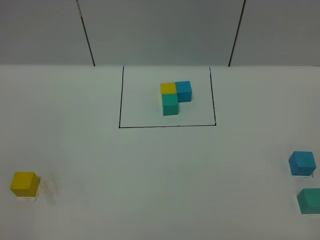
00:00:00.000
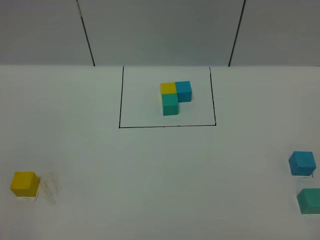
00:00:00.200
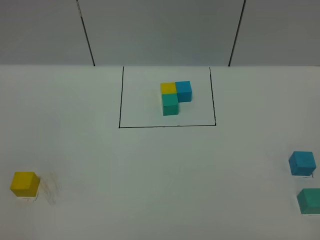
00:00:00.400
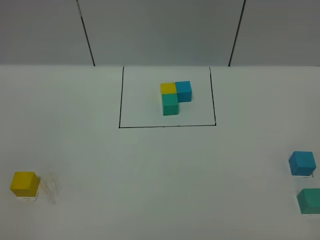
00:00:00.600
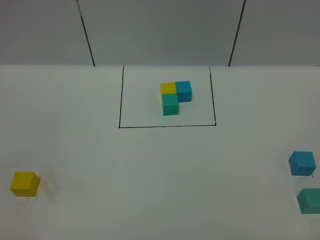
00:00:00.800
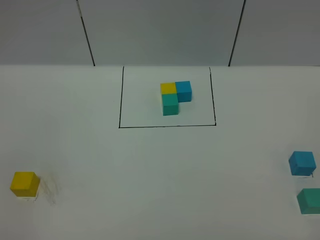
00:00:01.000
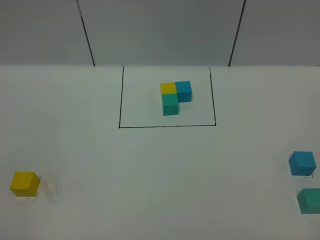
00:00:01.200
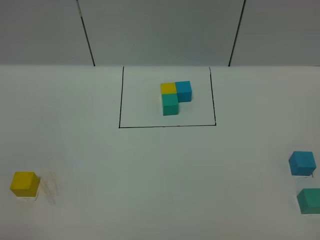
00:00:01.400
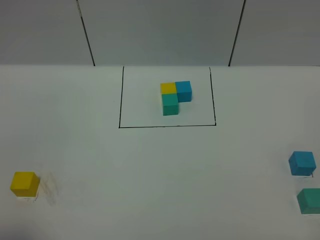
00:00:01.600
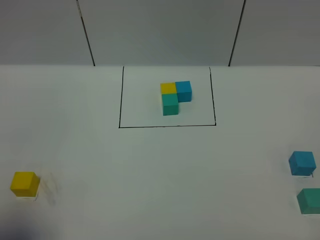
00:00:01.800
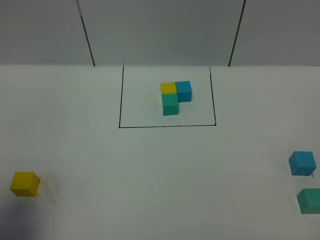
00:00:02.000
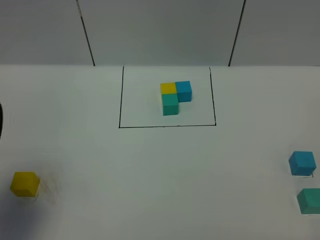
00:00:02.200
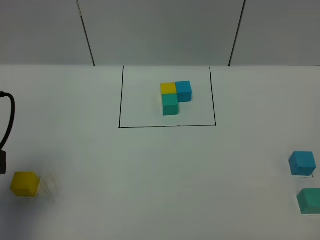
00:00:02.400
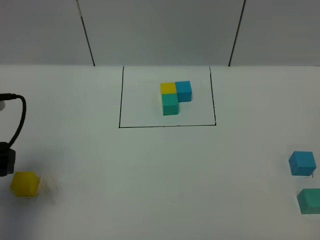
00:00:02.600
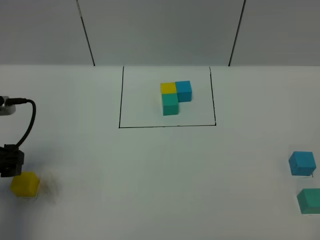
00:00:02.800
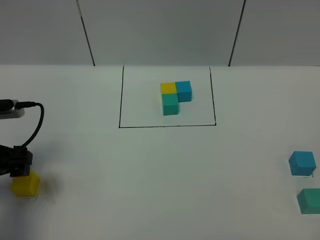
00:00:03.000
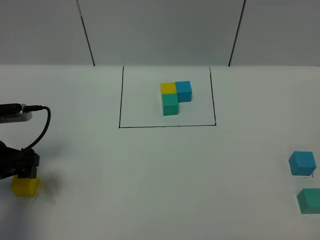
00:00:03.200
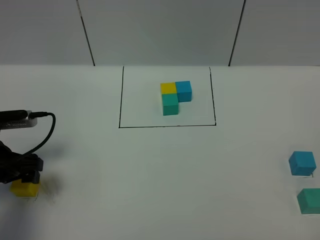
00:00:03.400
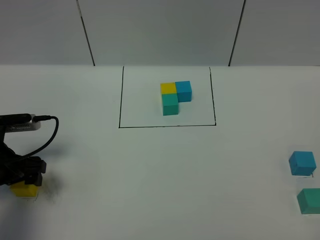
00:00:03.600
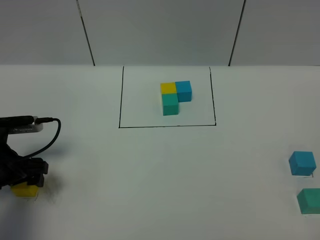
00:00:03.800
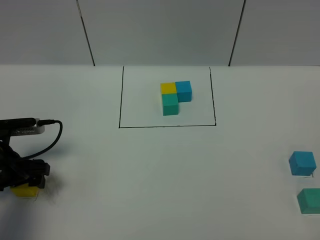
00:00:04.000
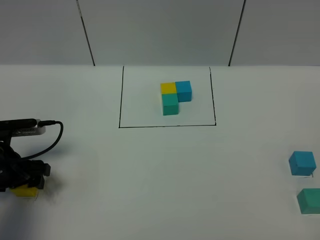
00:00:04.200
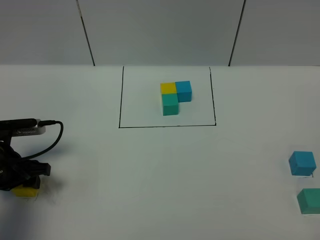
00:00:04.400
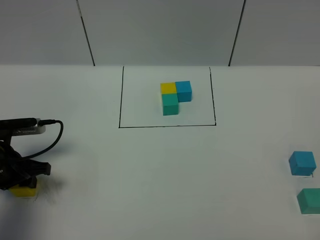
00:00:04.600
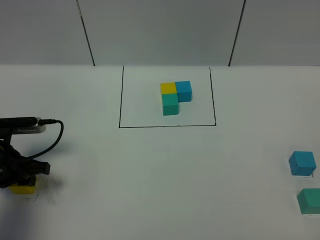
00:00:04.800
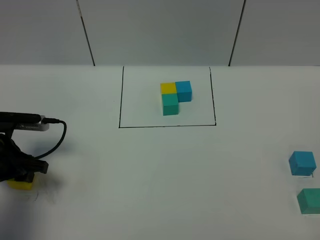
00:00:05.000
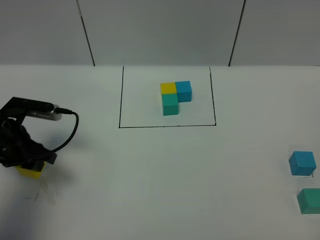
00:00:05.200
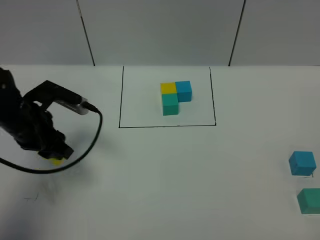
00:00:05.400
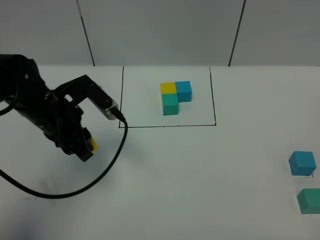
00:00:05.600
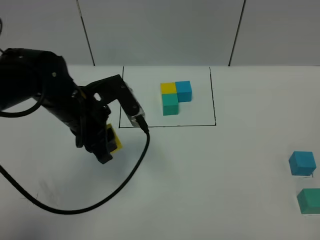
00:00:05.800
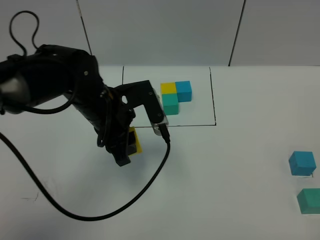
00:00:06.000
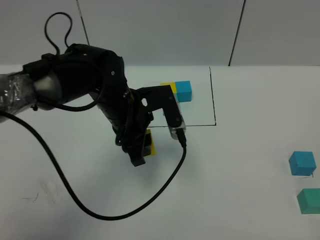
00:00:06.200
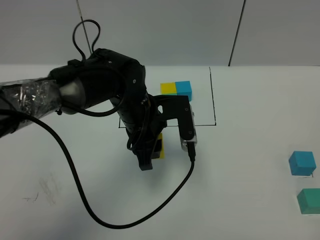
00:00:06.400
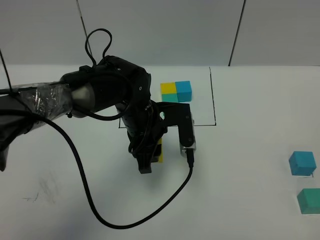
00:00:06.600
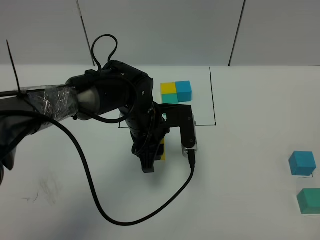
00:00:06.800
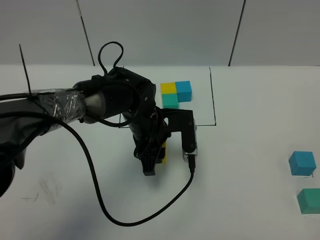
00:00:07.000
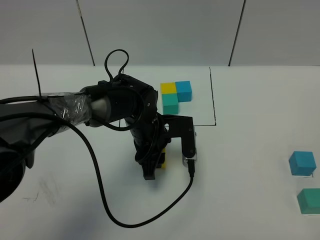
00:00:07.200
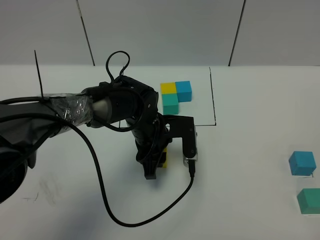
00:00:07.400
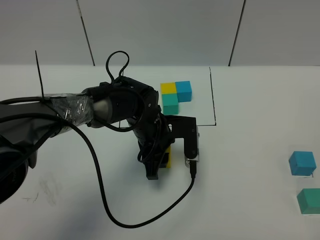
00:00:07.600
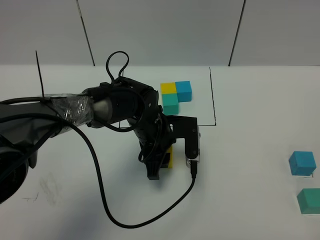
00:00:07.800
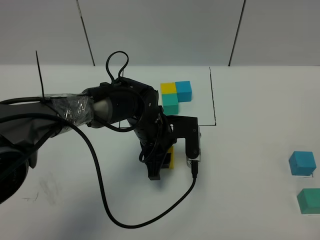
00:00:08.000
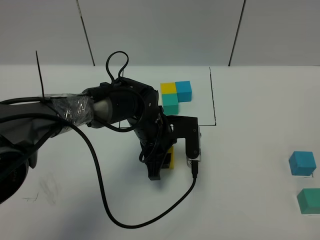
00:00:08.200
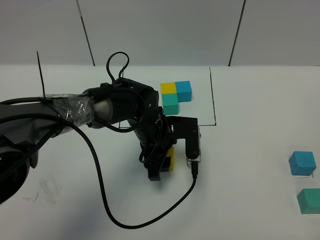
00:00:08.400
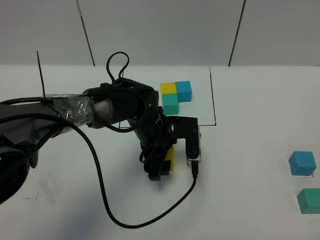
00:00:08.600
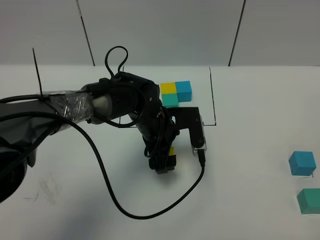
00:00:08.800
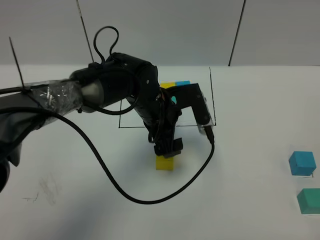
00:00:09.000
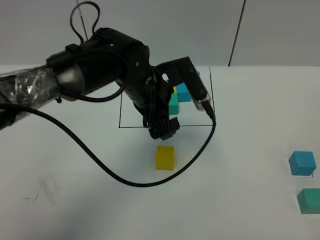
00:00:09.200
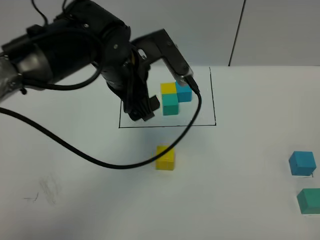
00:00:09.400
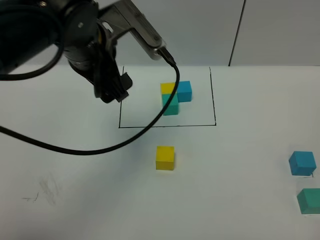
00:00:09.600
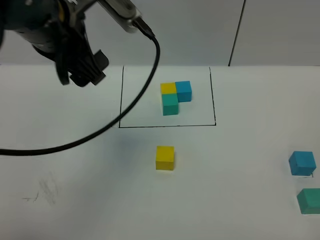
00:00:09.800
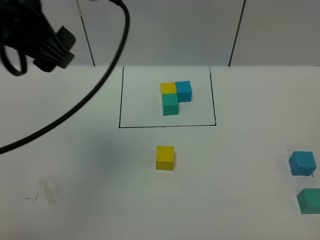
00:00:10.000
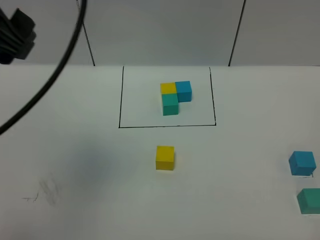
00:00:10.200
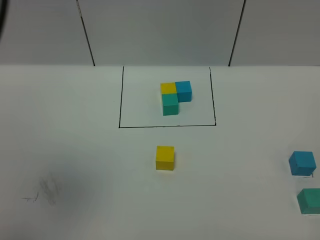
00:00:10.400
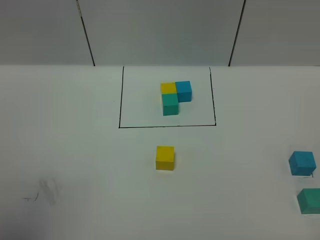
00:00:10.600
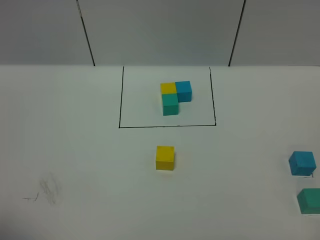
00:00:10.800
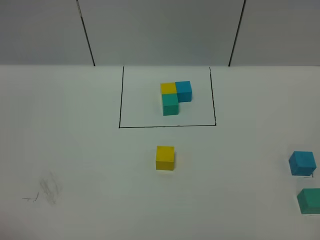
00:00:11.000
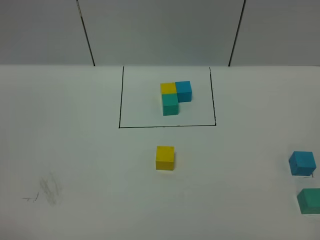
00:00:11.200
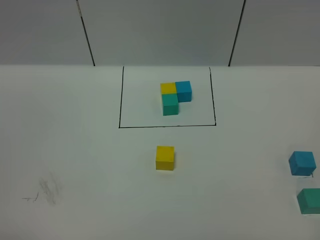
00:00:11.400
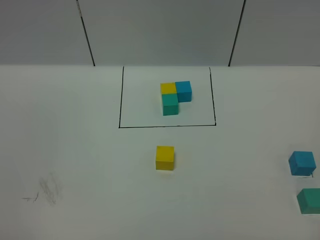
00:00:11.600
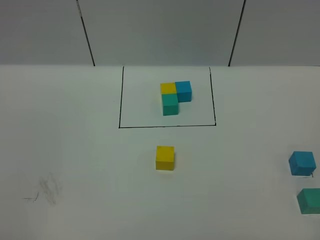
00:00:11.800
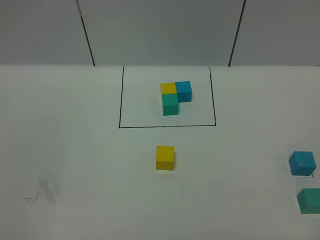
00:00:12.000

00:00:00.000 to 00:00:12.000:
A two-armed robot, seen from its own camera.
Task of the whole recording: According to the building block template in front, assemble the scattered blocks together.
Step, 00:00:02.200 to 00:00:09.400: Put the yellow cube in the center of the table.
00:00:01.600 to 00:00:03.000: The left gripper travels forward and downward by roughly 25 cm.
00:00:03.000 to 00:00:04.400: The left gripper is displaced downward by approximately 5 cm, and closes up.
00:00:04.400 to 00:00:06.000: The left gripper shifts some 20 cm to the right and upward.
00:00:06.000 to 00:00:07.600: The left gripper shifts roughly 10 cm downward and to the right.
00:00:07.600 to 00:00:09.000: The left gripper shifts some 5 cm upward, and opens its fingers.
00:00:09.000 to 00:00:10.400: The left gripper shifts roughly 40 cm upward, to the left and backward.
00:00:10.400 to 00:00:12.000: The left gripper travels backward and downward by approximately 25 cm.

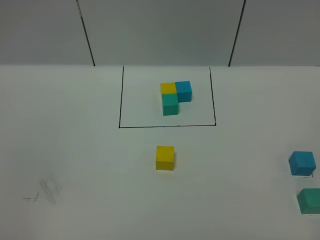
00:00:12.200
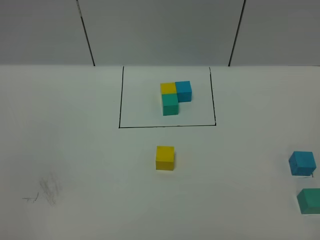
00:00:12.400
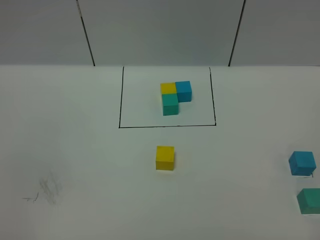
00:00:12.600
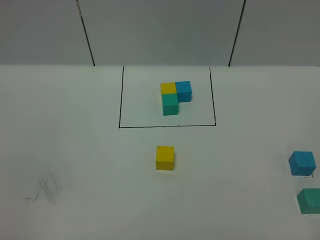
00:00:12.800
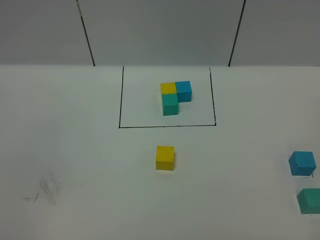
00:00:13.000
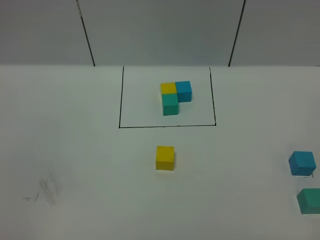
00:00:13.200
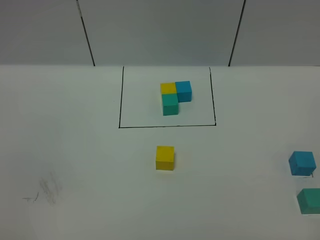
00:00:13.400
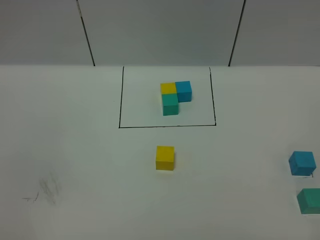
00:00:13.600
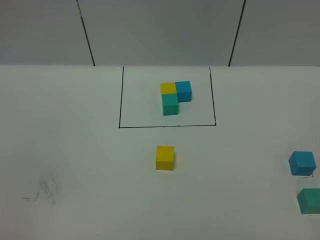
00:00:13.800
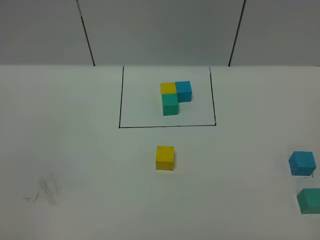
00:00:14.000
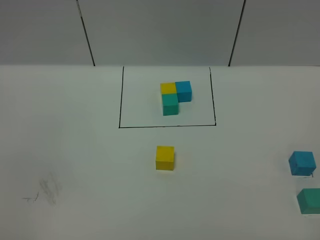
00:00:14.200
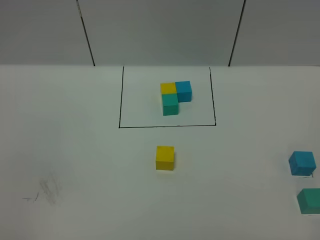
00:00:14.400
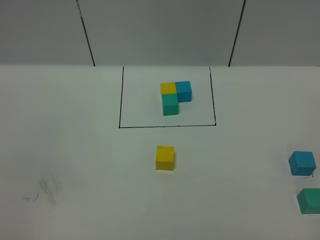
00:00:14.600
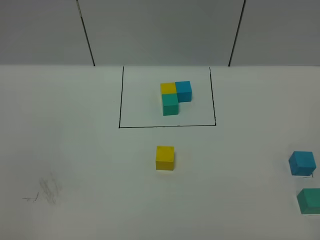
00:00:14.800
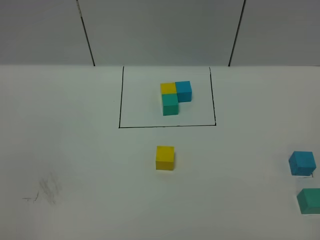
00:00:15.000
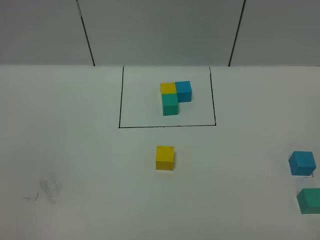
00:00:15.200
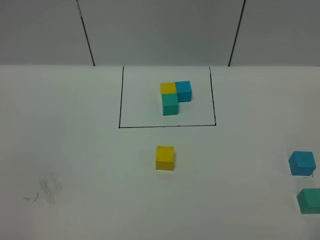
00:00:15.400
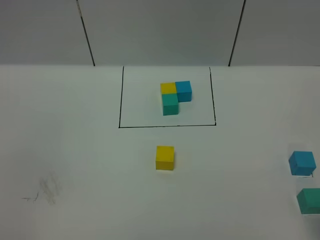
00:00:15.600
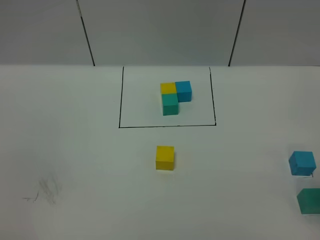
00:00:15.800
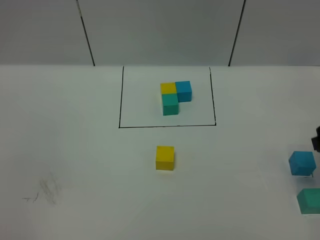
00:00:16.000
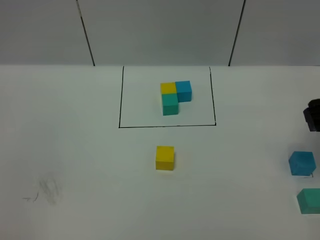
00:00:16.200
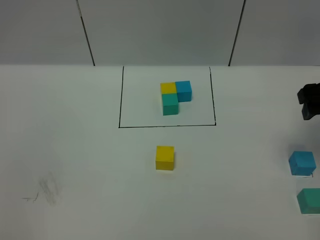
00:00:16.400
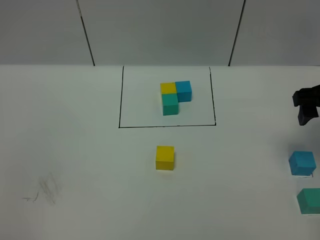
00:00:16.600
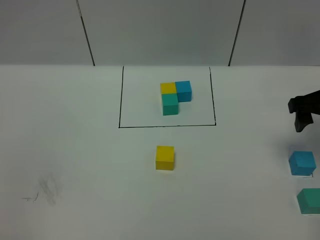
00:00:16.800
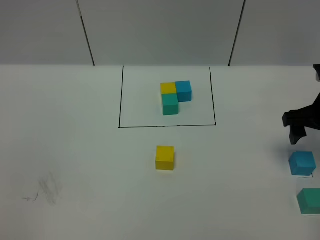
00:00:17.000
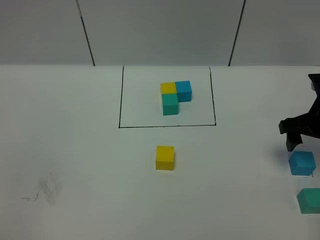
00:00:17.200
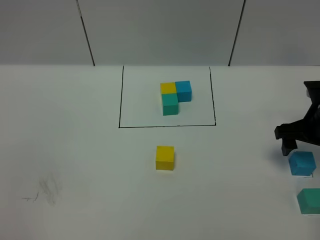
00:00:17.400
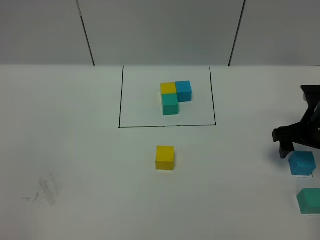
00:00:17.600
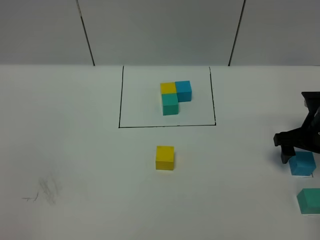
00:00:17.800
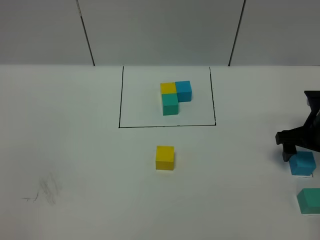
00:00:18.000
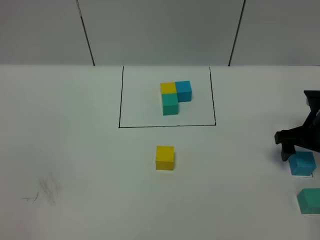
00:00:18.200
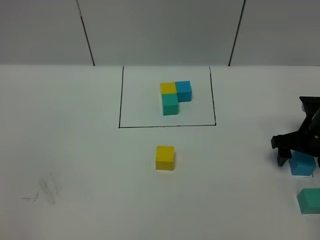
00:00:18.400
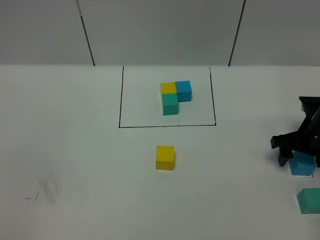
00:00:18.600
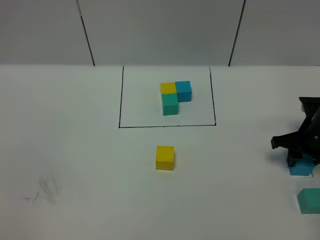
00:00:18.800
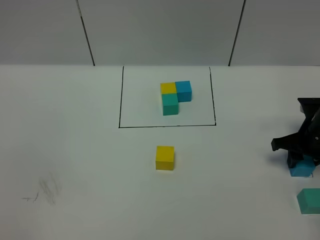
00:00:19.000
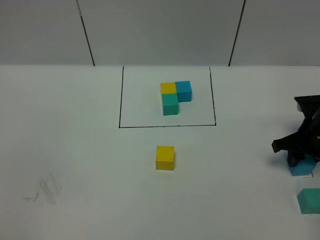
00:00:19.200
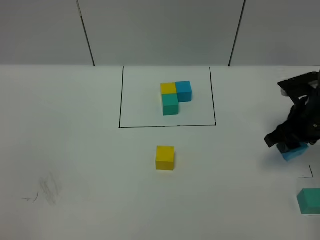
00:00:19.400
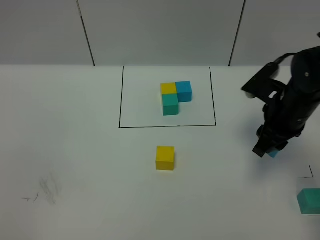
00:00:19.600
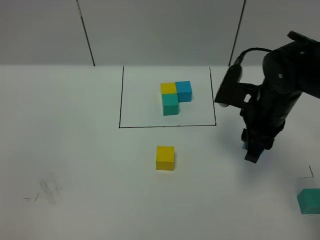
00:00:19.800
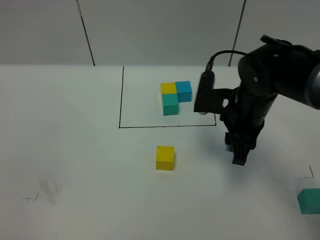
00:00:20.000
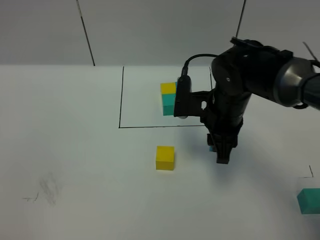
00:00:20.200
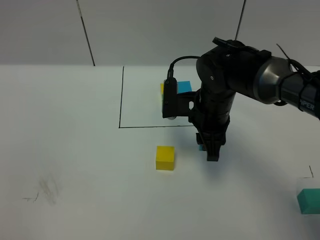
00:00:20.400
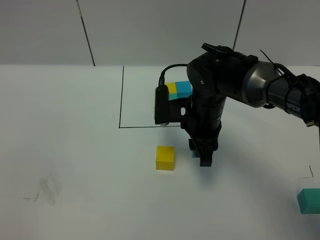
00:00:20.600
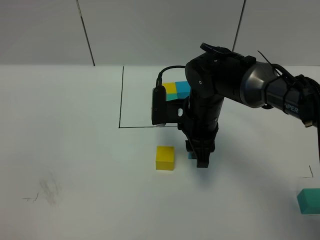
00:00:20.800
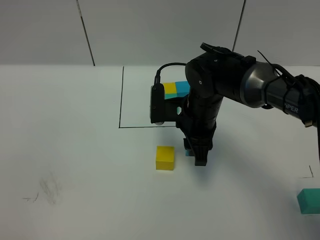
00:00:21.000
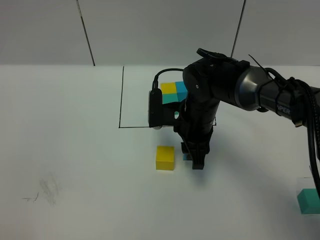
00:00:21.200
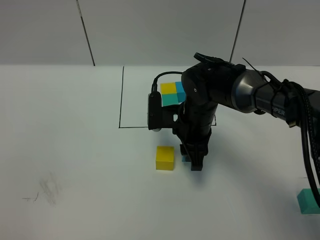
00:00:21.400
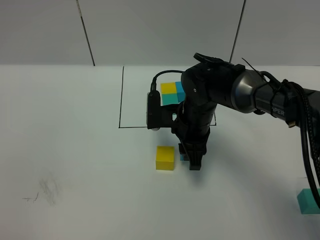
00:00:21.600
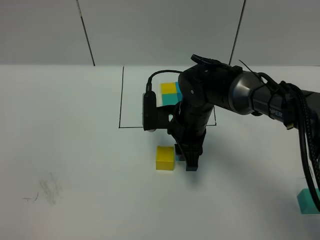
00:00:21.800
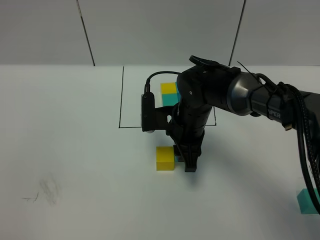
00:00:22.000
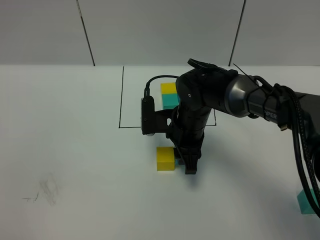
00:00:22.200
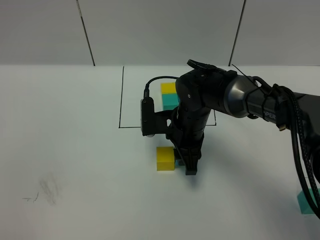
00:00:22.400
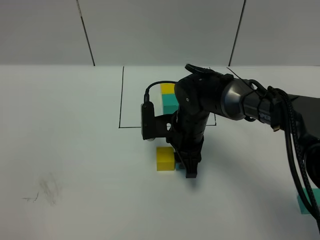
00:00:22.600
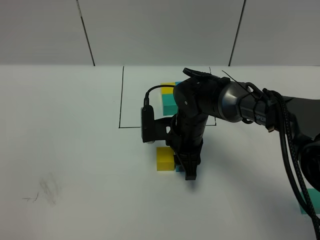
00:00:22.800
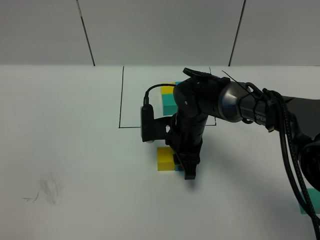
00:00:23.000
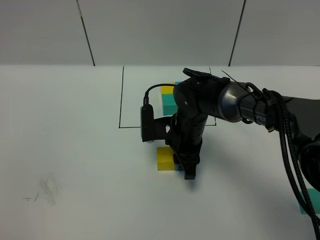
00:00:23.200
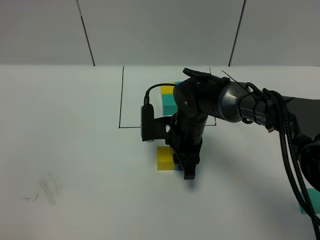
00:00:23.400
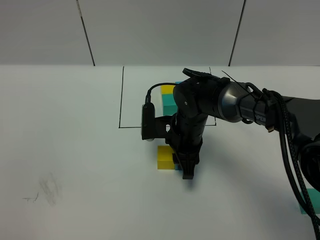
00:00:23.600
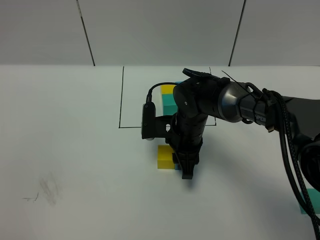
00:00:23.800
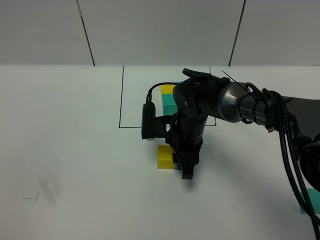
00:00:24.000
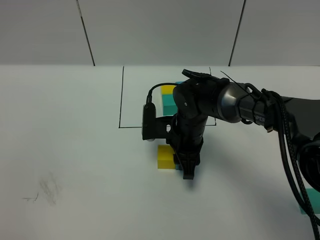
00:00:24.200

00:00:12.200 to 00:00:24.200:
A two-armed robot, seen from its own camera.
Task of the whole recording: According to the building block template in front, assemble the scattered blocks together.
00:00:15.200 to 00:00:16.600: The right gripper shifts approximately 30 cm forward.
00:00:16.600 to 00:00:18.200: The right gripper travels downward by approximately 15 cm.
00:00:18.200 to 00:00:19.800: The right gripper shifts about 15 cm to the left and upward, and closes.
00:00:19.800 to 00:00:21.200: The right gripper goes approximately 10 cm to the left and downward.
00:00:21.200 to 00:00:22.600: The grippers make only small movements.
00:00:22.600 to 00:00:24.200: The two grippers keep their place.
